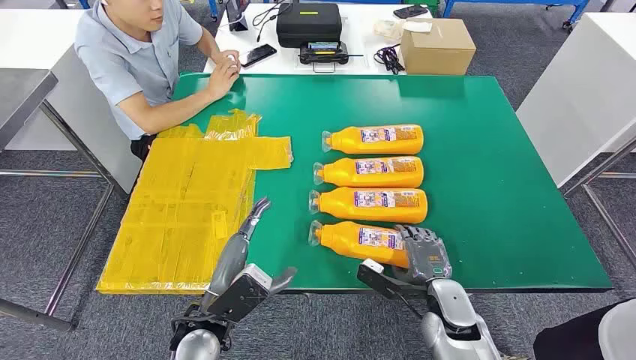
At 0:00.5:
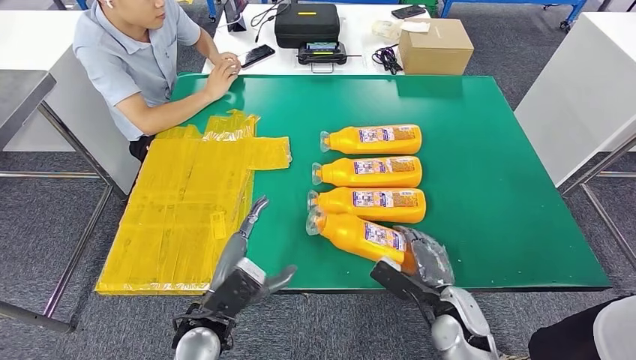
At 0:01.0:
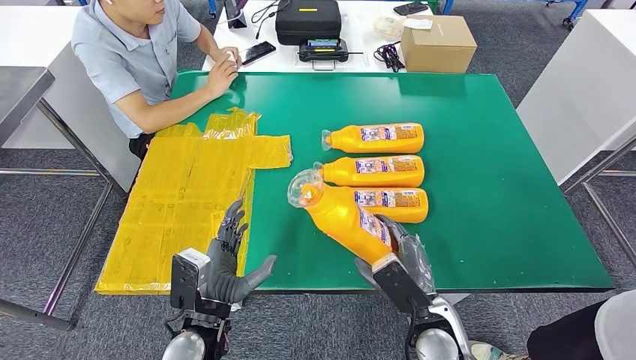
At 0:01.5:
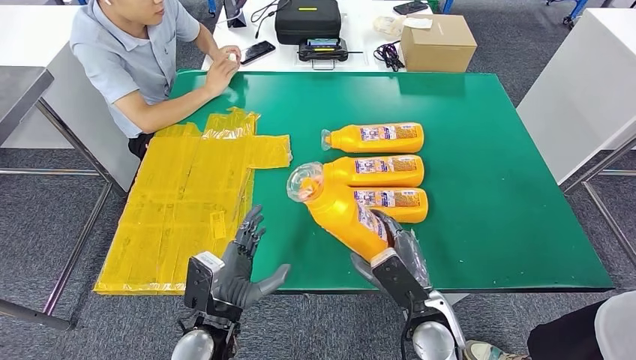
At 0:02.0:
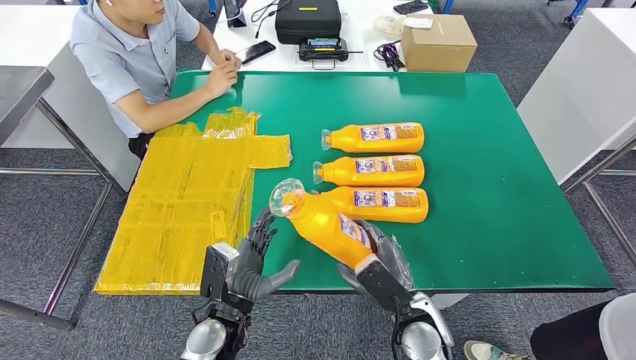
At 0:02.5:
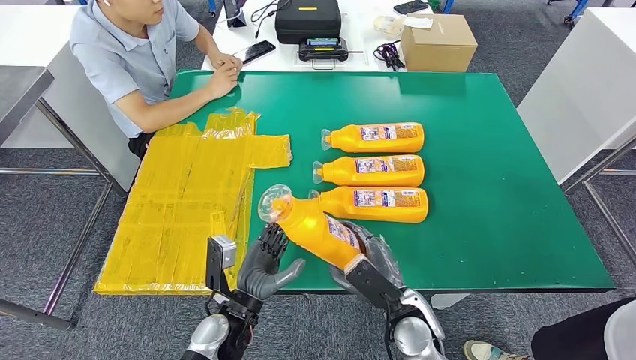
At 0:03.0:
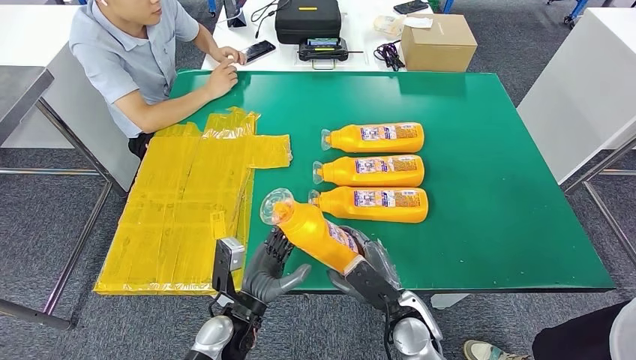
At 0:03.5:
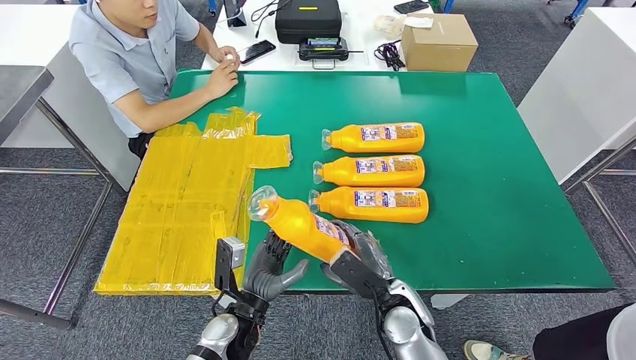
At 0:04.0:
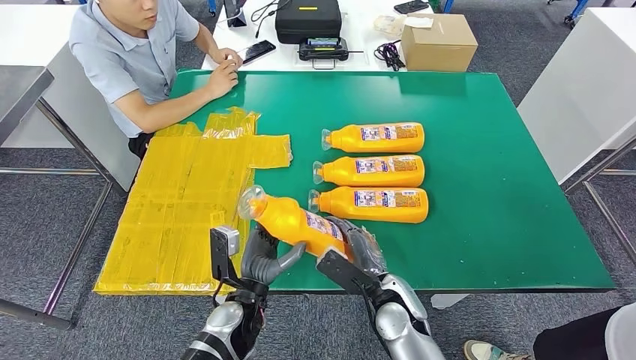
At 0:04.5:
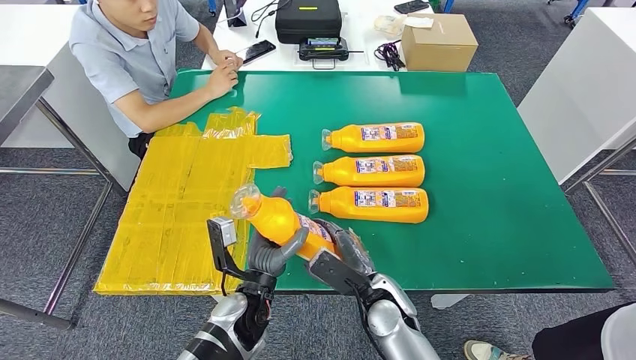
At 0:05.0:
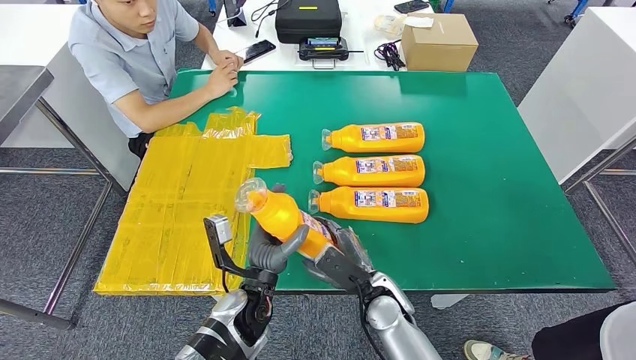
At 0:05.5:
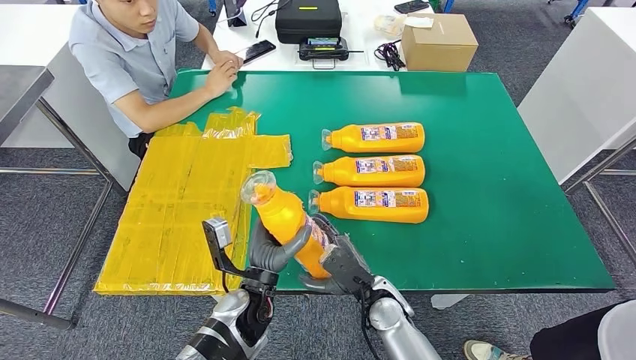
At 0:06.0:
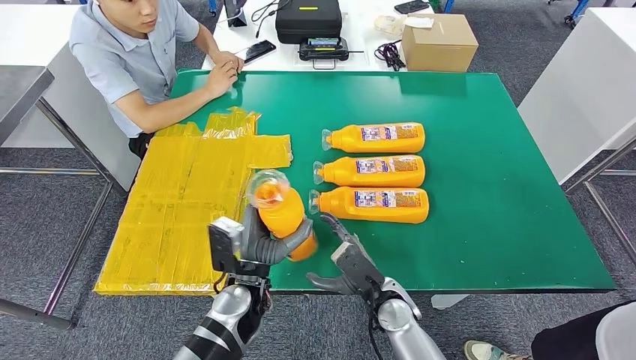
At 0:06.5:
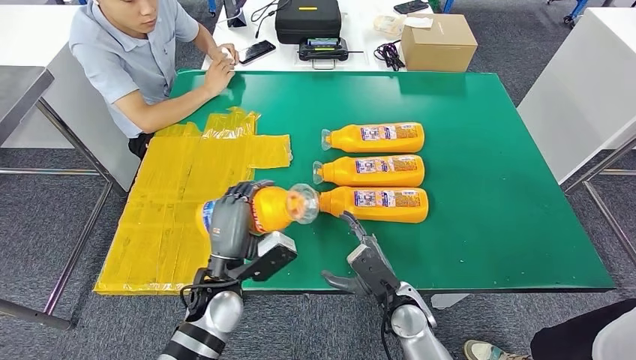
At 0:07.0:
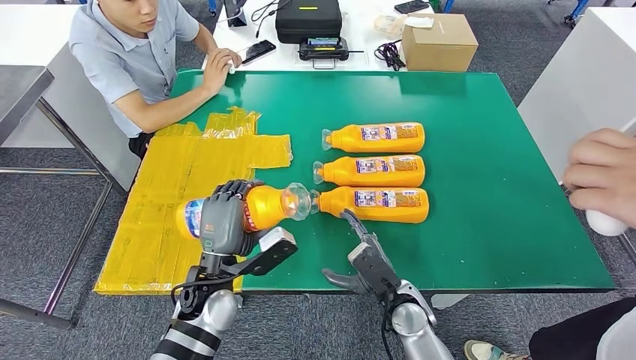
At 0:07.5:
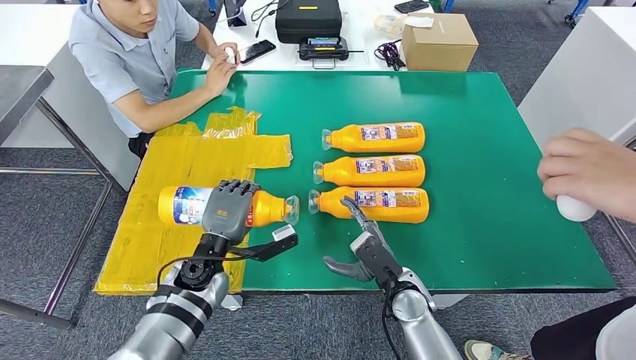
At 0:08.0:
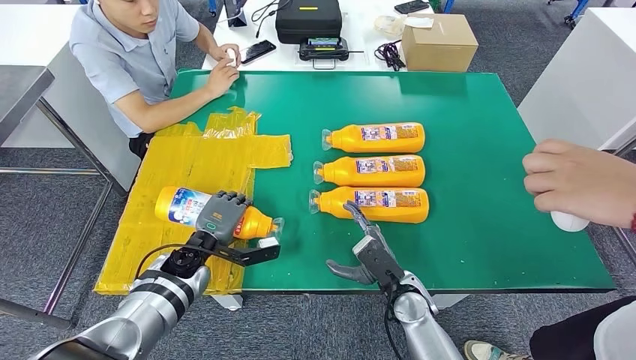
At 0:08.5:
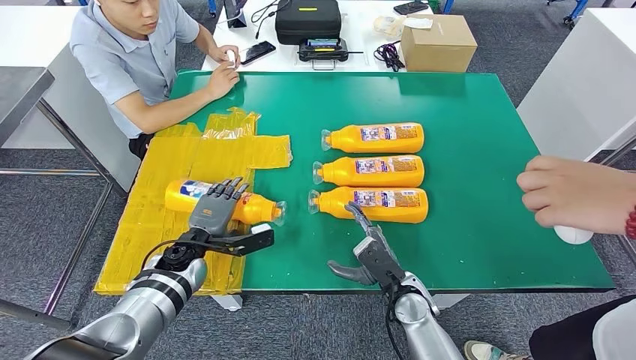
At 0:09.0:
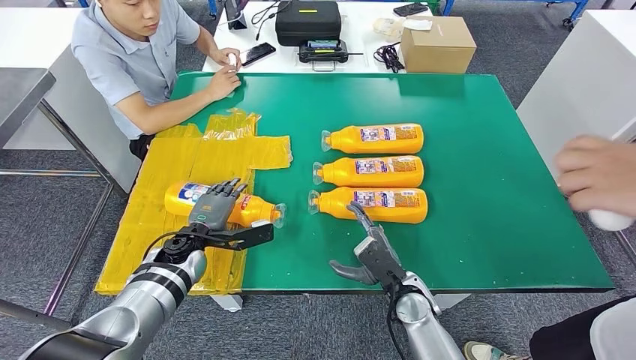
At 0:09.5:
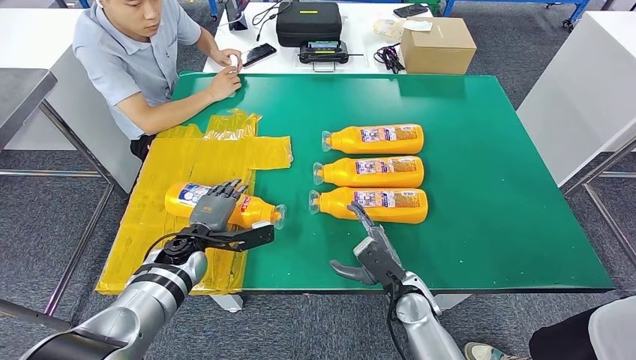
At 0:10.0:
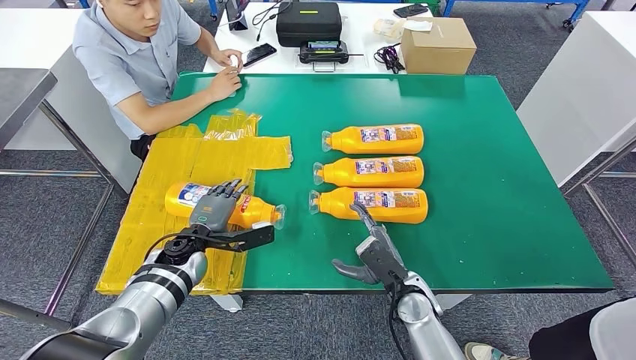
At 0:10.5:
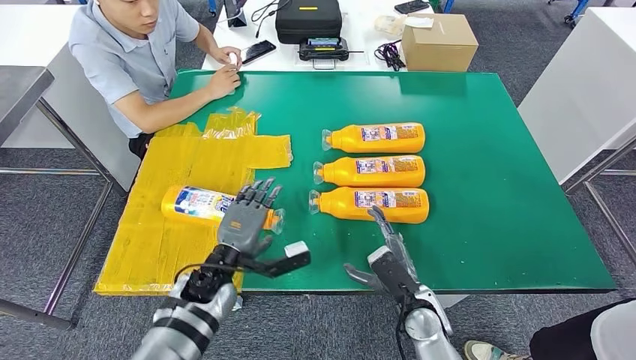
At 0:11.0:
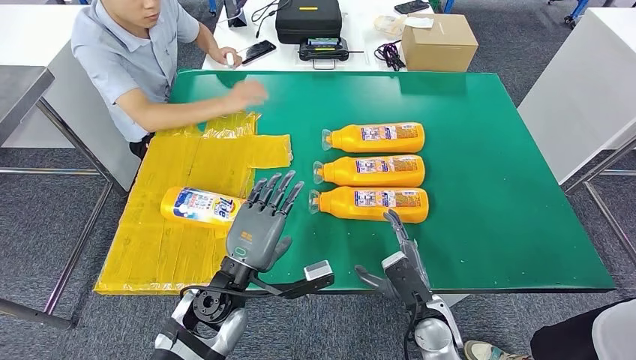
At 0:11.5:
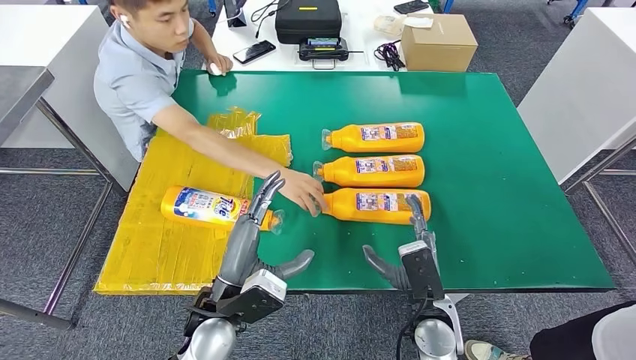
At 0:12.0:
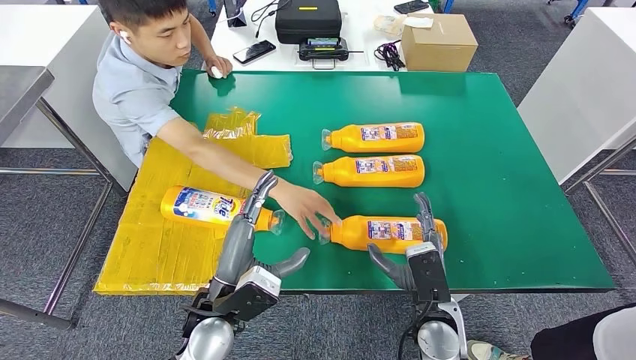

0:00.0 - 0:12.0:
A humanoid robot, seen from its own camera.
Step, 0:00.0 - 0:02.0: Take the fast-moving consumer goods bottle from the table.
Step, 0:03.0 - 0:09.5: Flip the fast-moving consumer goods bottle to the front side.
0:02.0 - 0:04.0: The hands stay close to where they were, moving slightly.
0:06.0 - 0:08.0: The left hand goes roughly 15 cm to the left and forward.
0:08.0 - 0:10.0: There are only small adjustments of the hands.

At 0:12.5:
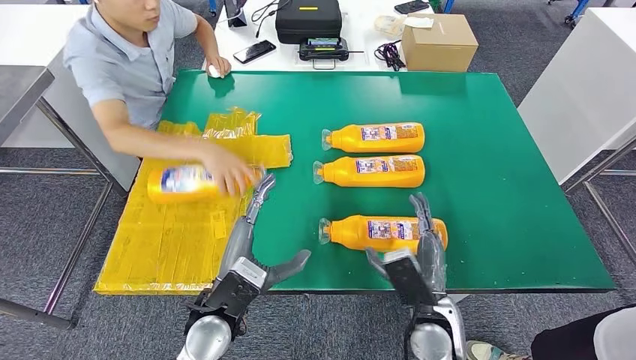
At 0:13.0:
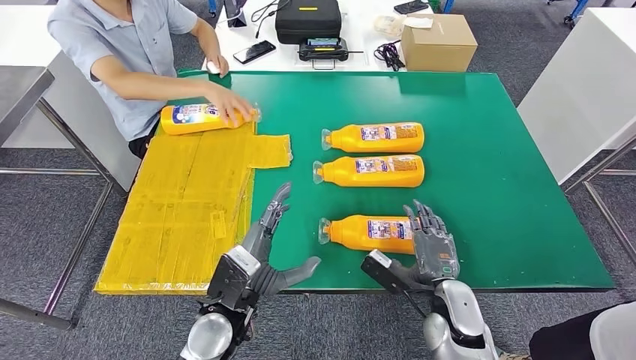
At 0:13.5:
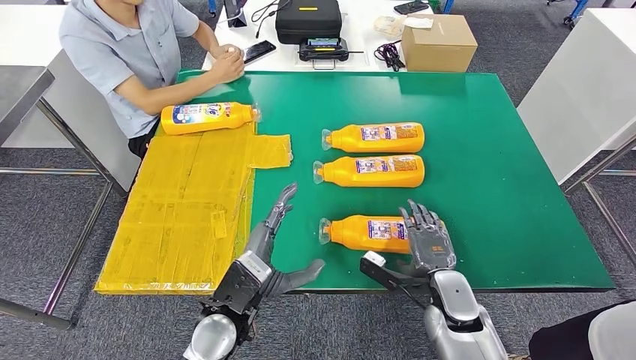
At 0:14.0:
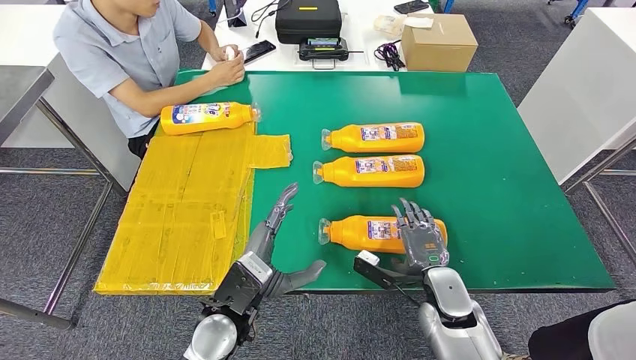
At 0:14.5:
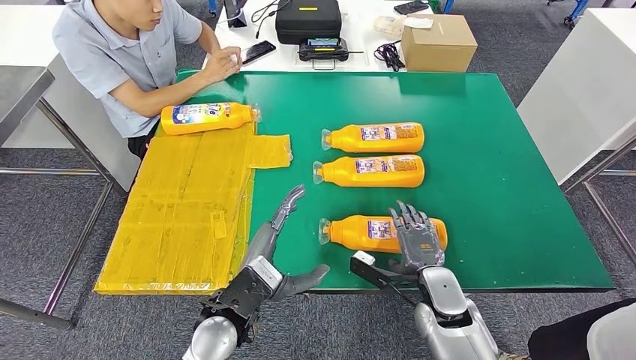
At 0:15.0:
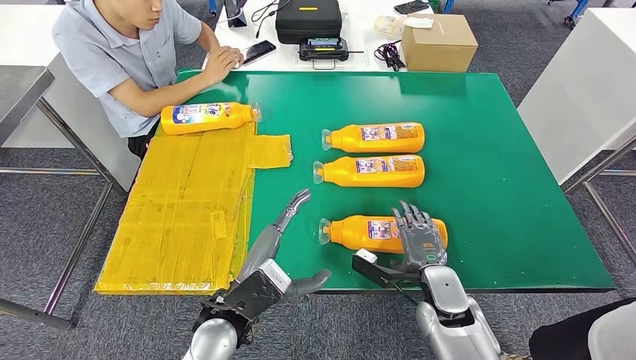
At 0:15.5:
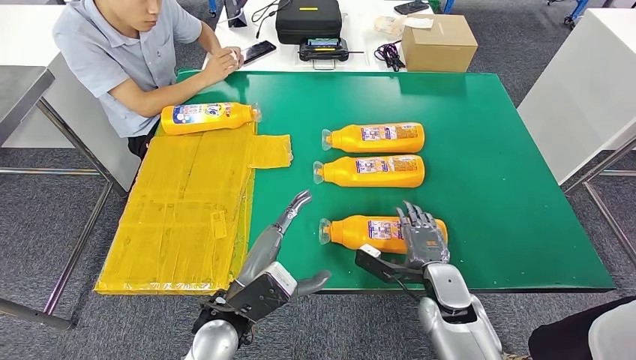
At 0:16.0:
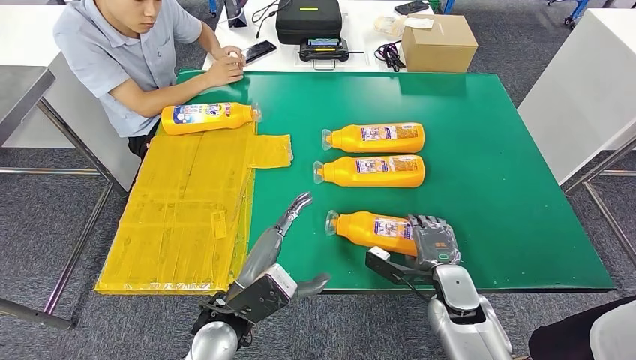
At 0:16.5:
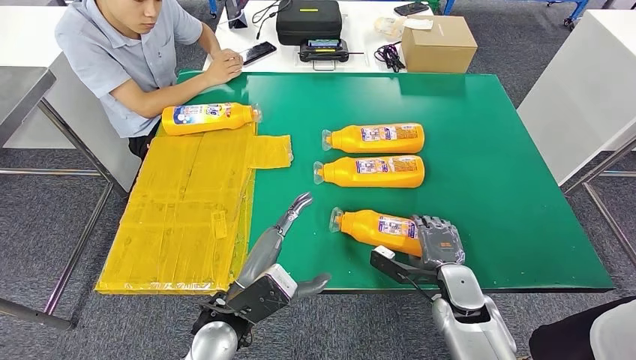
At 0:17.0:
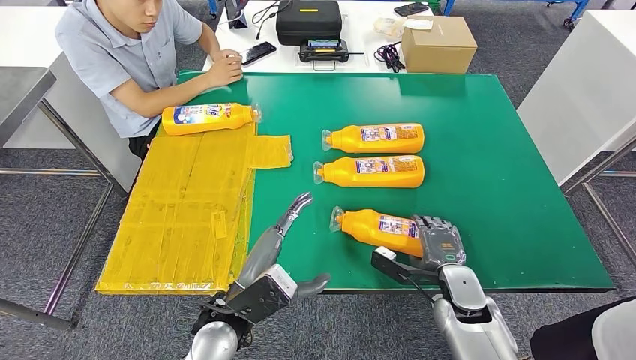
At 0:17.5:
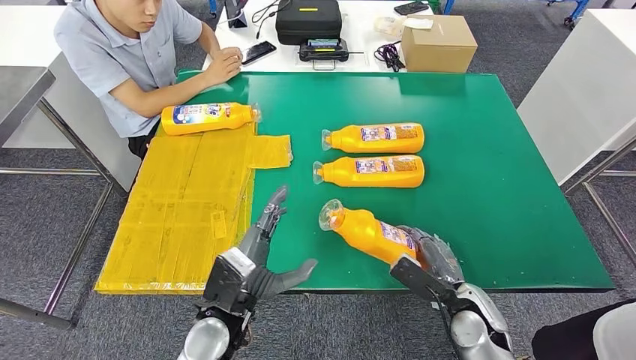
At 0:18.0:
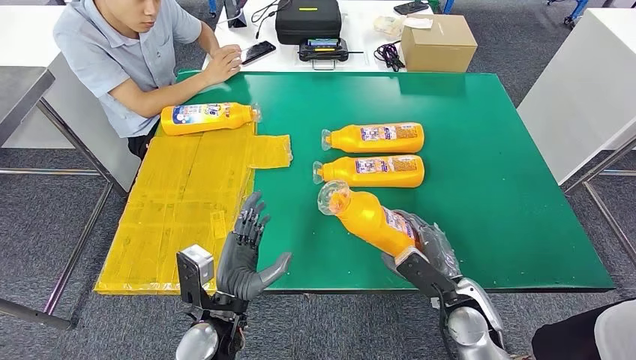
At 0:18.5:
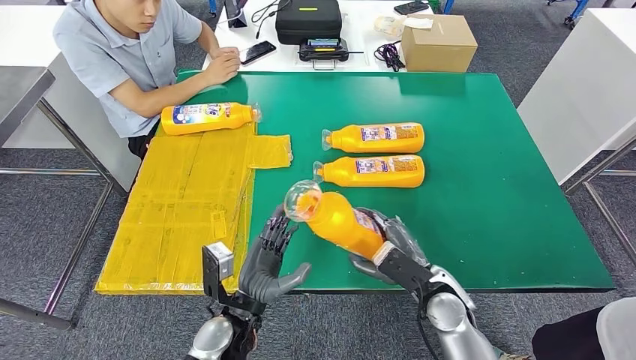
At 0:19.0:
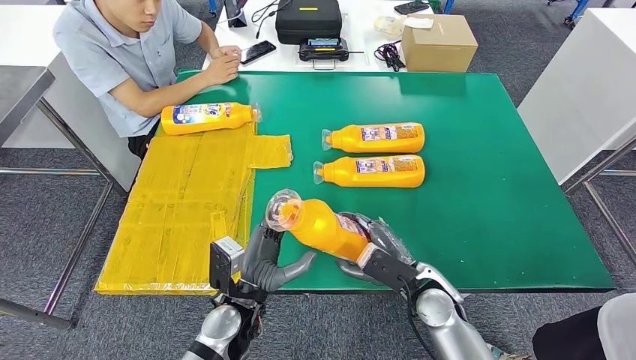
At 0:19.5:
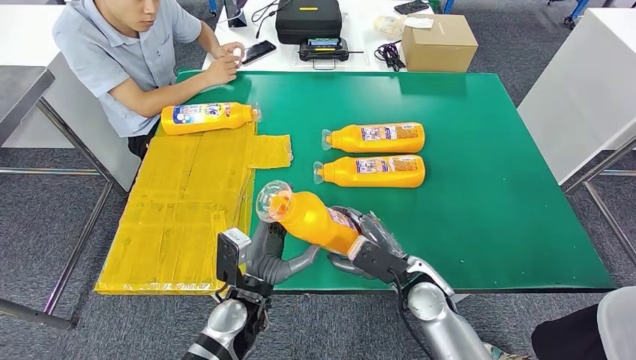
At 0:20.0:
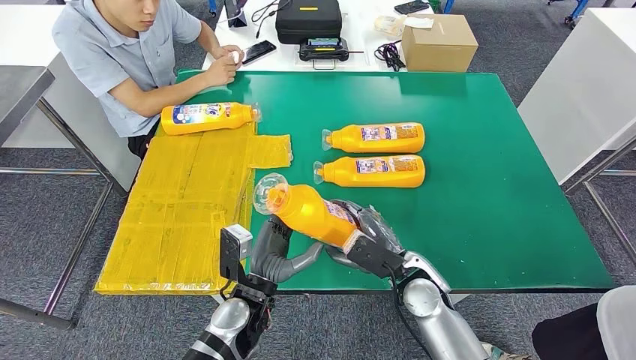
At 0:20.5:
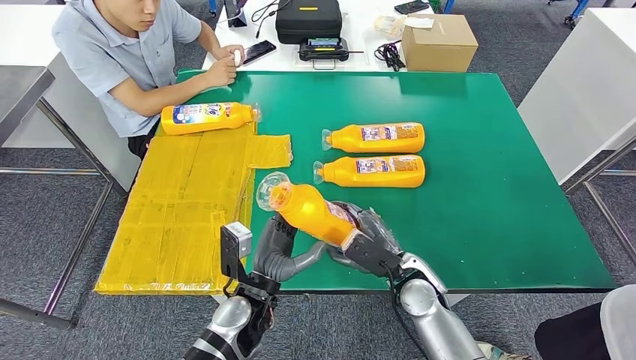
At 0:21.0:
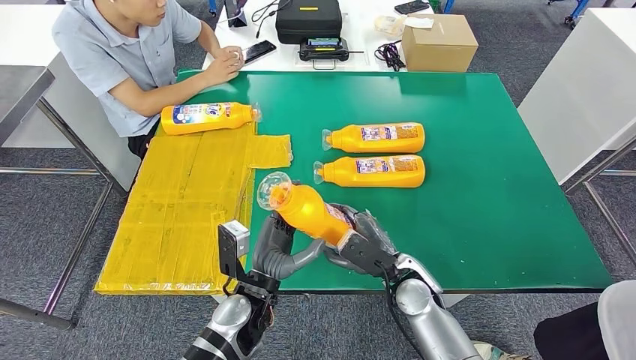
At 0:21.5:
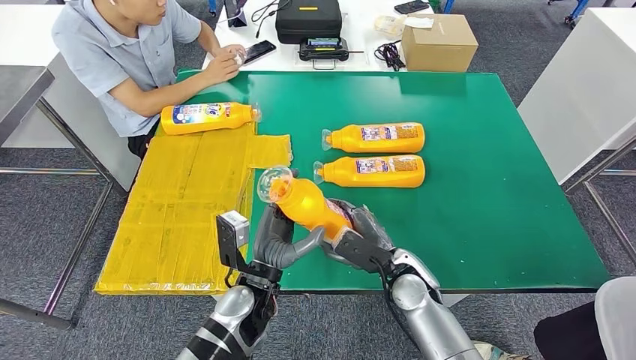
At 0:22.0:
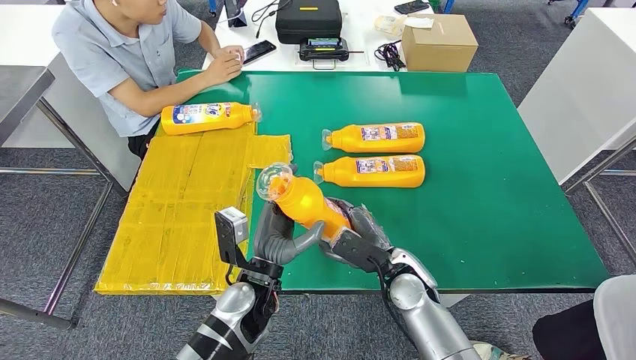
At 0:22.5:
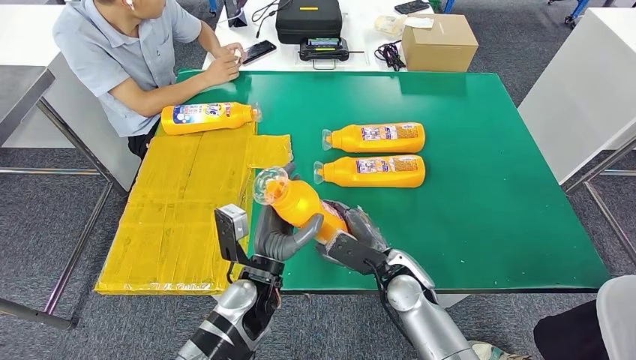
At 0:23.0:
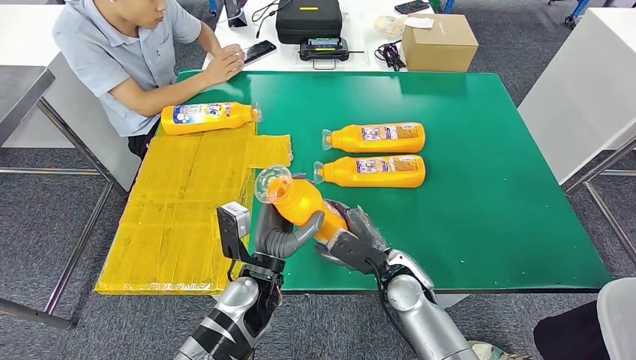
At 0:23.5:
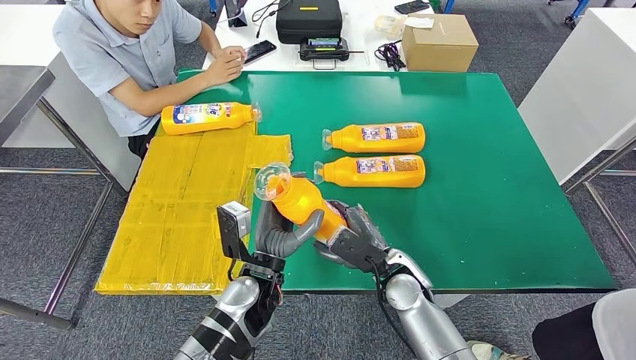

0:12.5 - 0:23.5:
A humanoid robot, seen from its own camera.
Step, 0:15.5 - 0:20.5: Pick up the fast-moving consumer goods bottle from the table.
0:12.5 - 0:14.5: The right hand heads forward, covering approximately 5 cm.
0:14.5 - 0:16.0: There are only small adjustments of the hands.
0:18.0 - 0:20.0: The left hand moves approximately 5 cm; the right hand travels to the left by some 10 cm.
0:20.0 - 0:23.5: The hands make only small movements.
